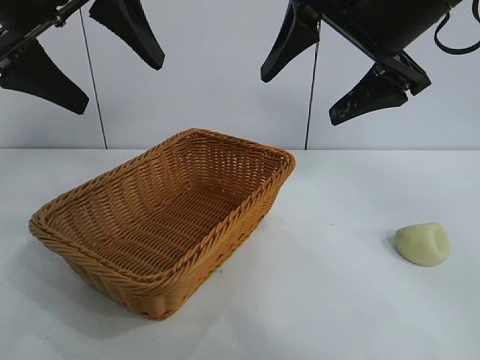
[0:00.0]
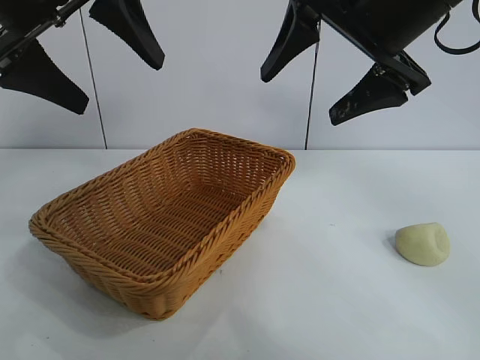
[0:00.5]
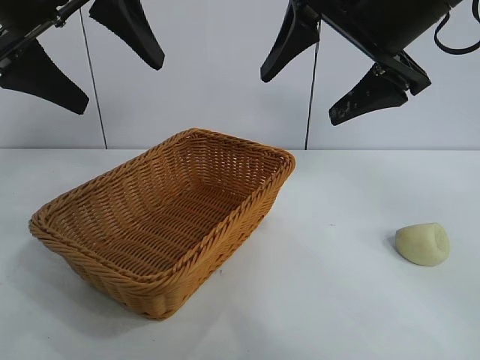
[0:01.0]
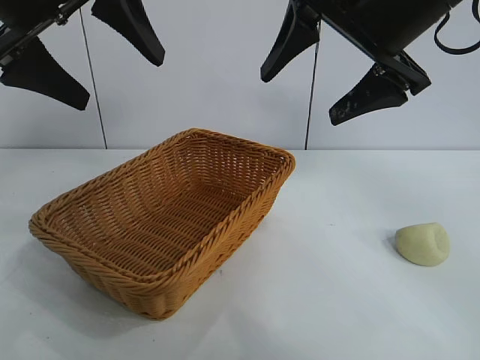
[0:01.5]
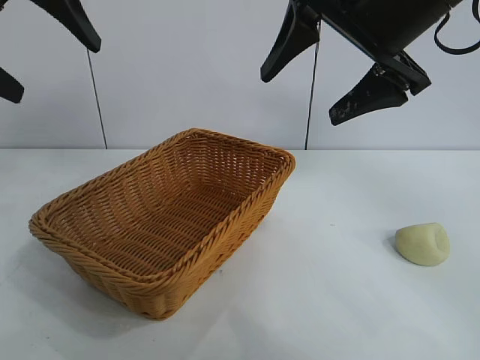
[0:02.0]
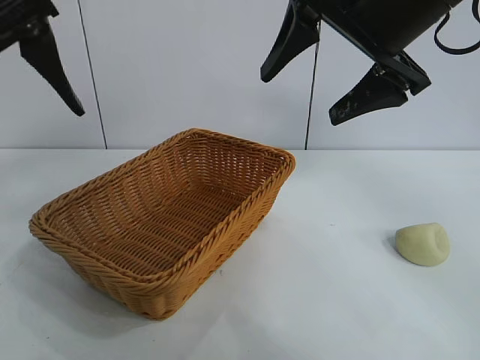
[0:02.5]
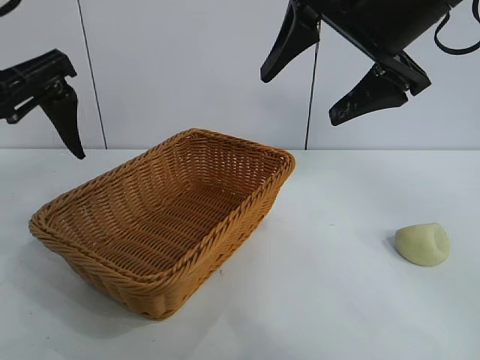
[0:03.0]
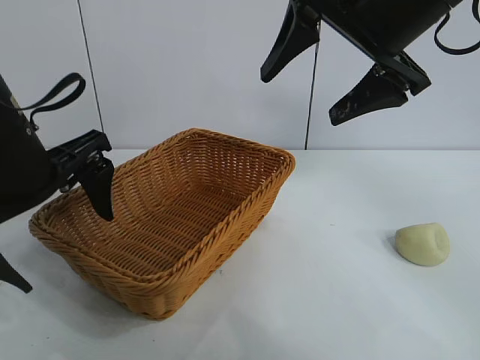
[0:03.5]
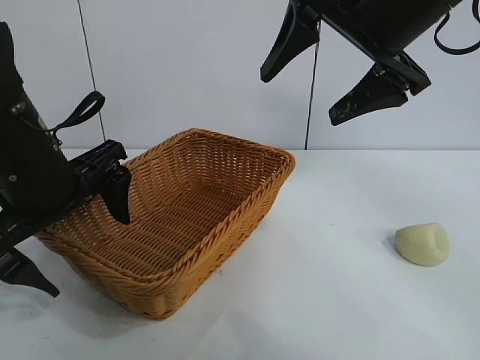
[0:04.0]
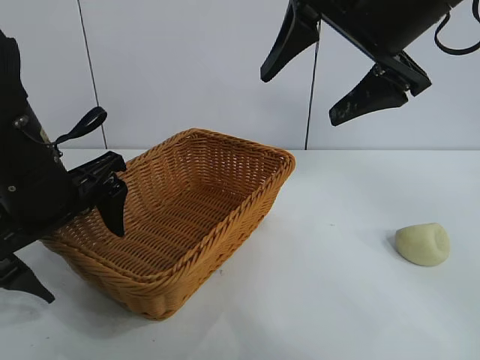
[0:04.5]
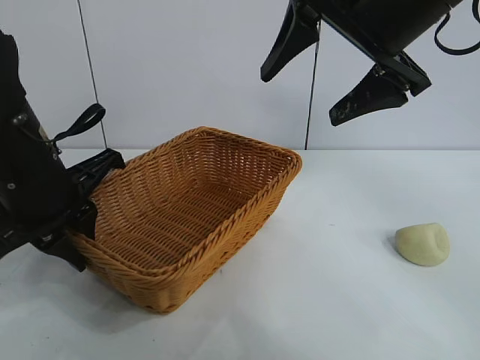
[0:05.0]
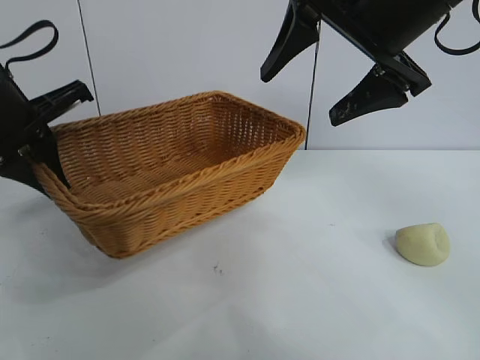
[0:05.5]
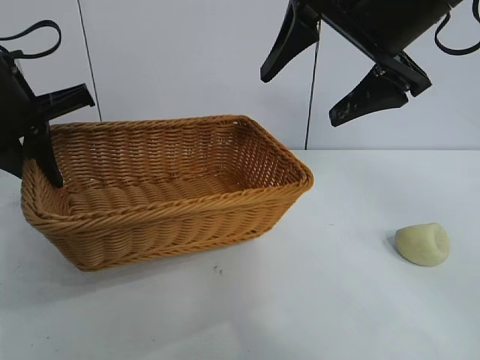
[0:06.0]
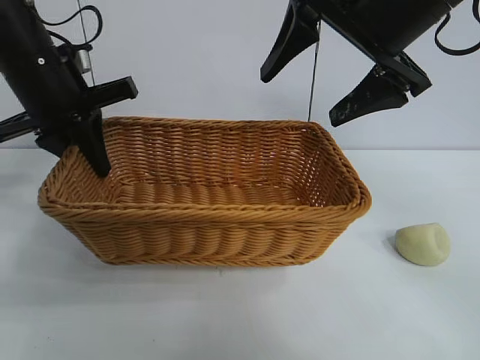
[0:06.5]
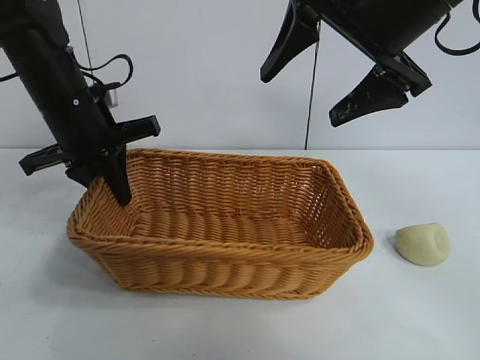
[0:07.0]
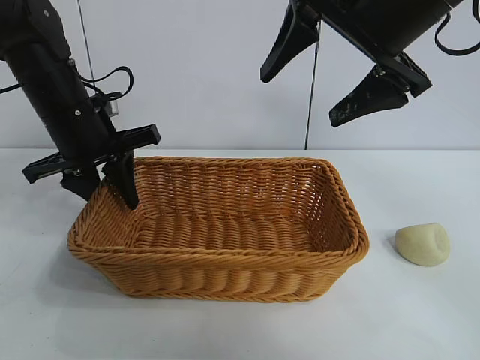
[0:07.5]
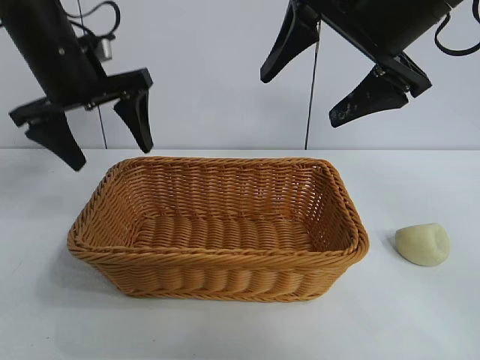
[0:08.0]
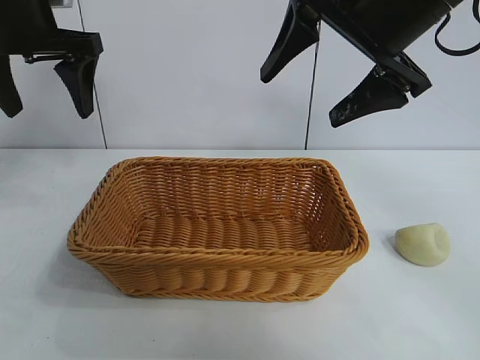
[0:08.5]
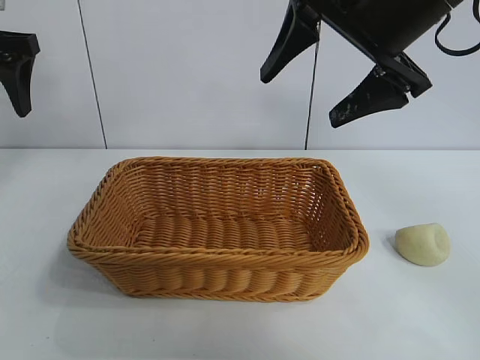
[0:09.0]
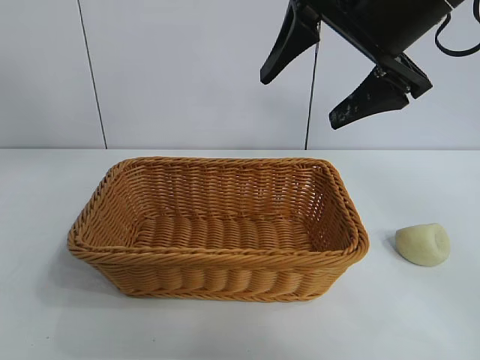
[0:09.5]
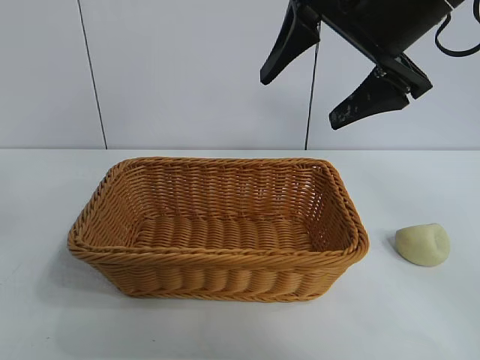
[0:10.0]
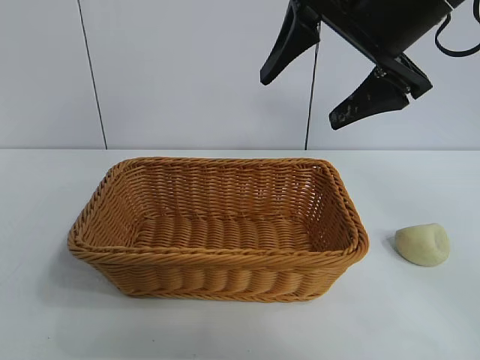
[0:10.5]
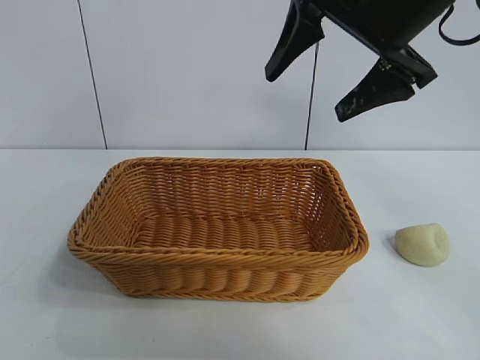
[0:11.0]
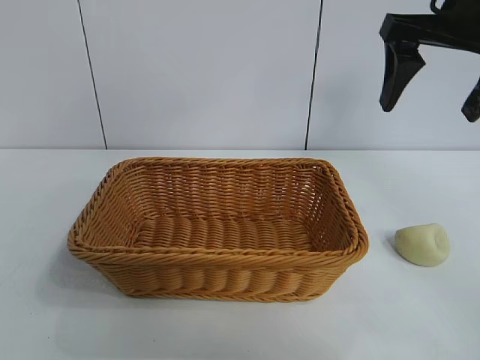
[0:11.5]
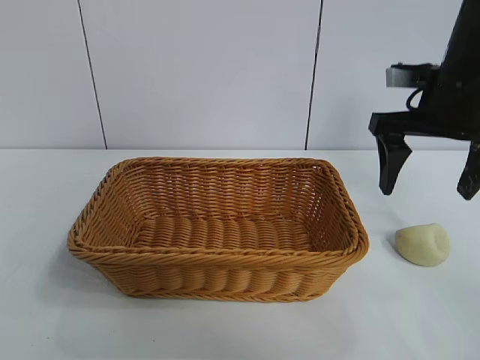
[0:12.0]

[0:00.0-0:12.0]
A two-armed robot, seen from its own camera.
Task of the whole recording: pick up the egg yolk pastry and put it into the basket.
Step, 0:01.5 to 0:05.0: Grasp the basket with left gripper.
Step, 0:05.5 to 0:07.5: Place the basket in the center of view with left gripper.

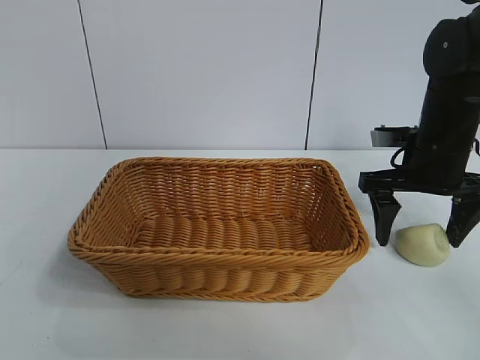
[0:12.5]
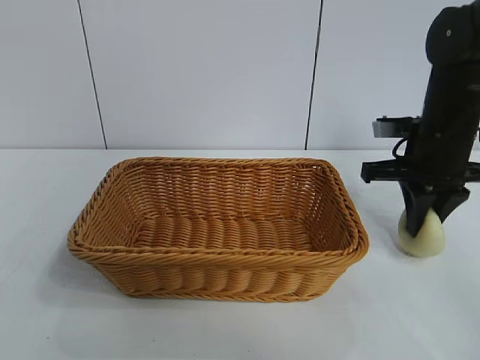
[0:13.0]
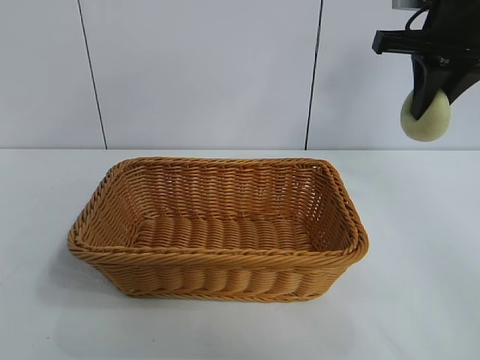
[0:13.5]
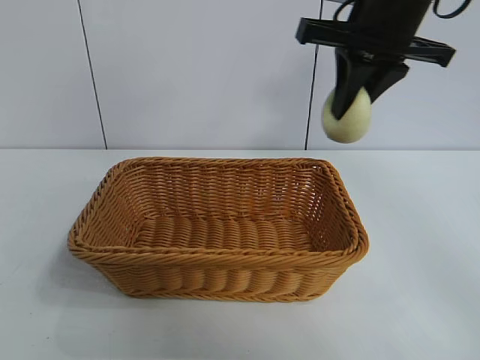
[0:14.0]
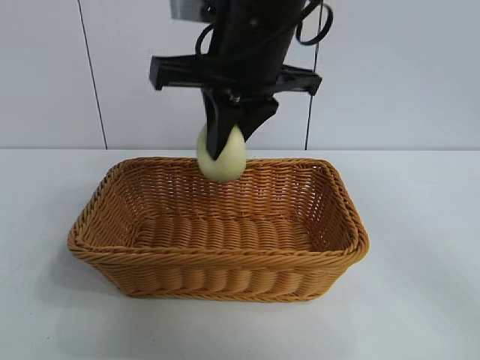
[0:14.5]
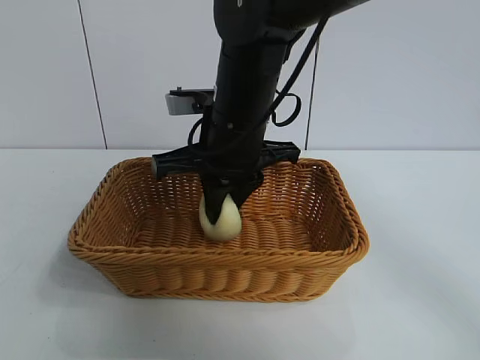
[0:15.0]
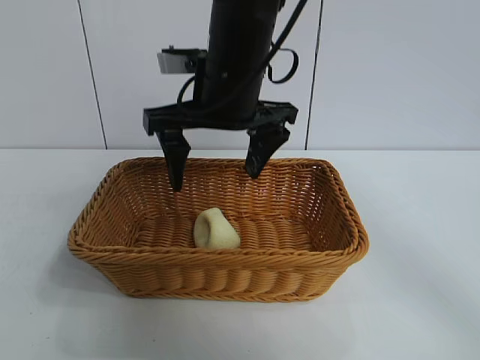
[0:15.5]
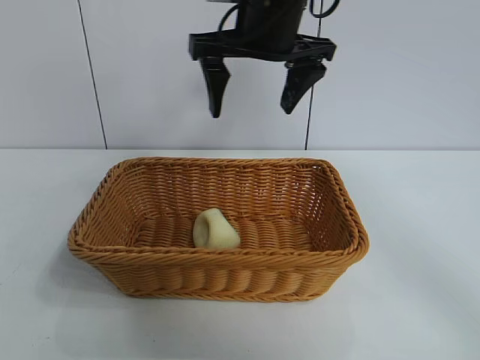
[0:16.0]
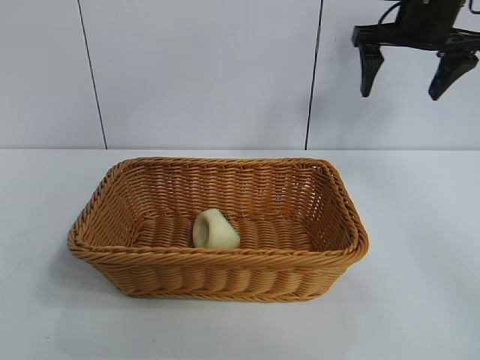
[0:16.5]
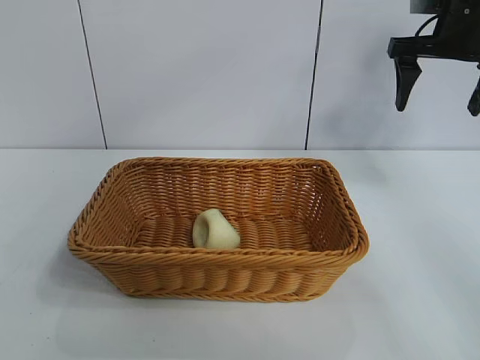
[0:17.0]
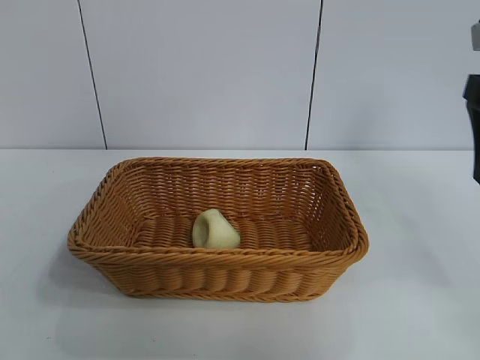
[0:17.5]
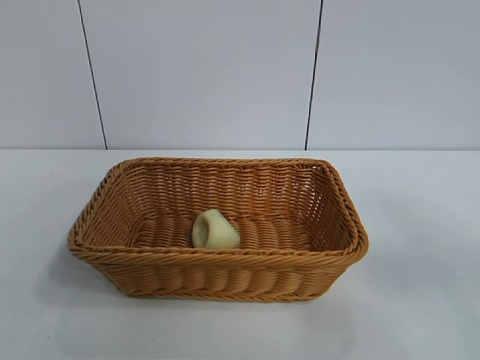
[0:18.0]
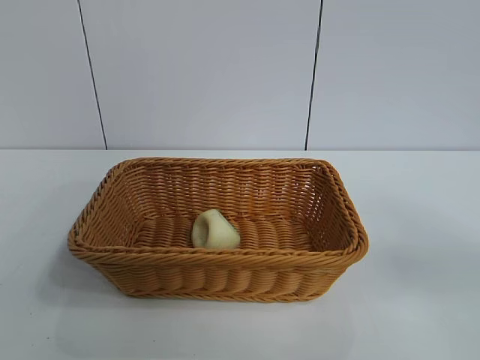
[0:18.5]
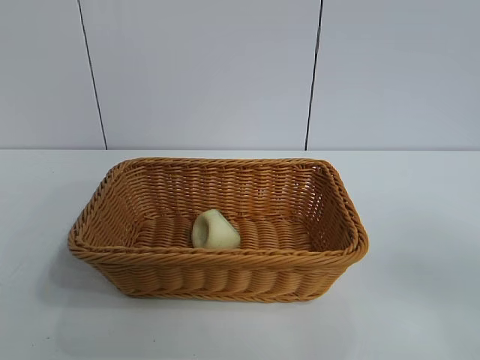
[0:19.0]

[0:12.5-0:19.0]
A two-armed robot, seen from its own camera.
Task of the whole recording: pick up the egg yolk pastry and put it into the basket.
Step, 0:13.0 to 0:15.0: Place the egg yolk pastry in the basket with right gripper.

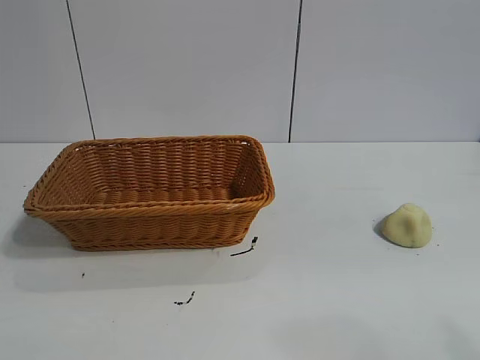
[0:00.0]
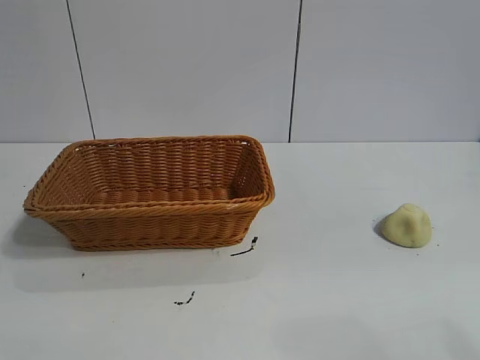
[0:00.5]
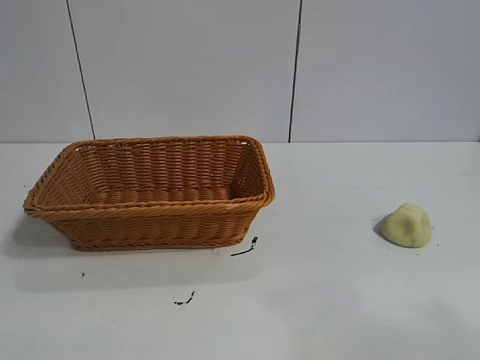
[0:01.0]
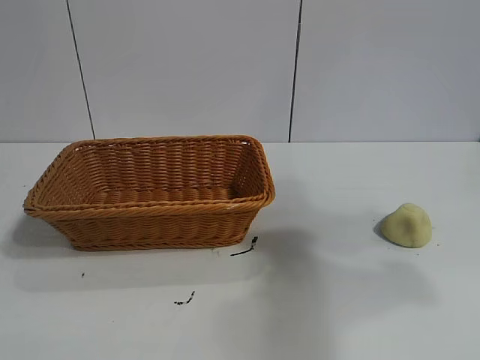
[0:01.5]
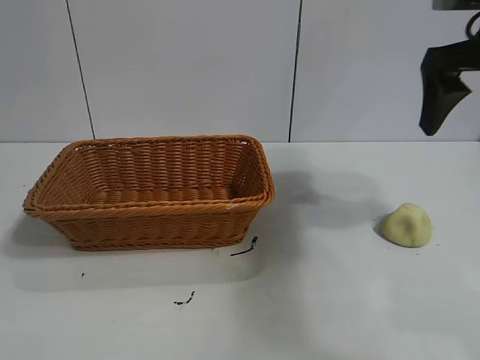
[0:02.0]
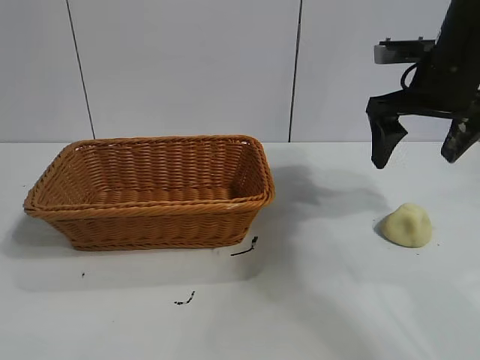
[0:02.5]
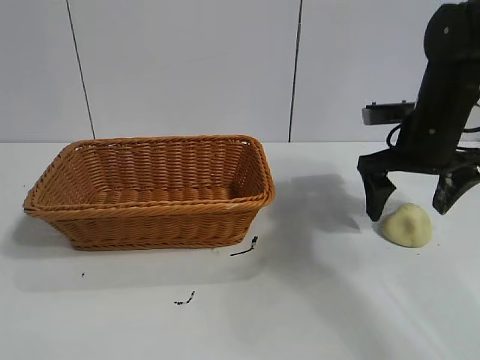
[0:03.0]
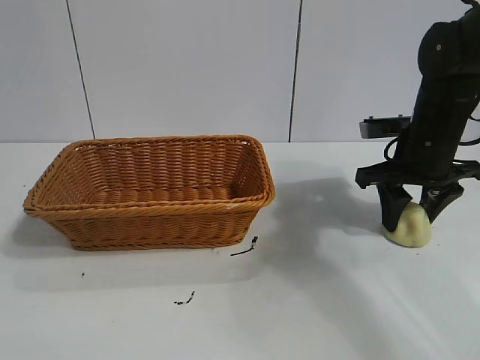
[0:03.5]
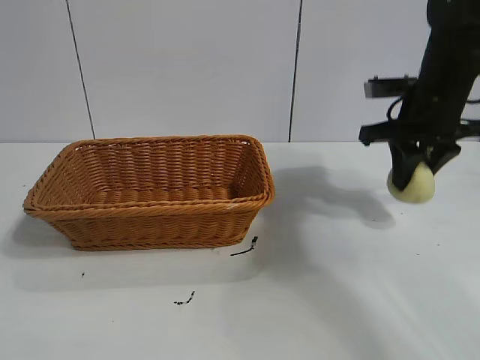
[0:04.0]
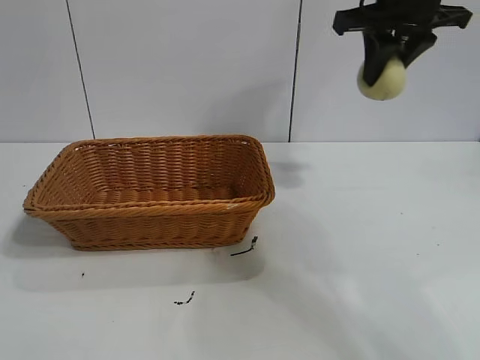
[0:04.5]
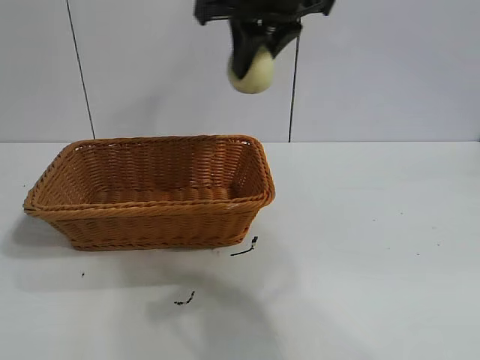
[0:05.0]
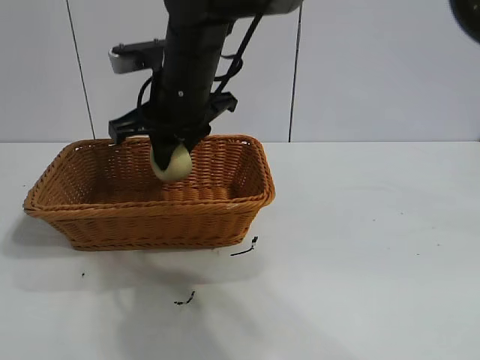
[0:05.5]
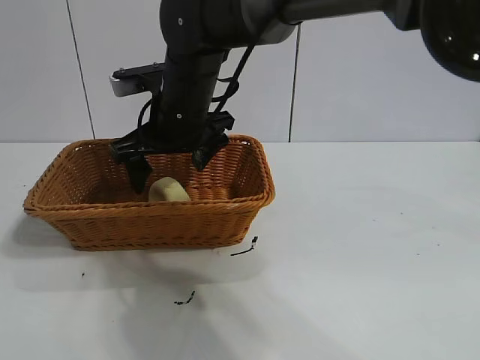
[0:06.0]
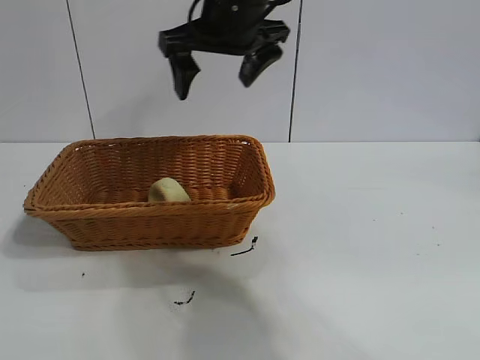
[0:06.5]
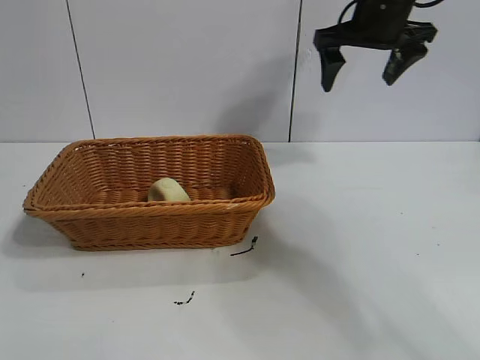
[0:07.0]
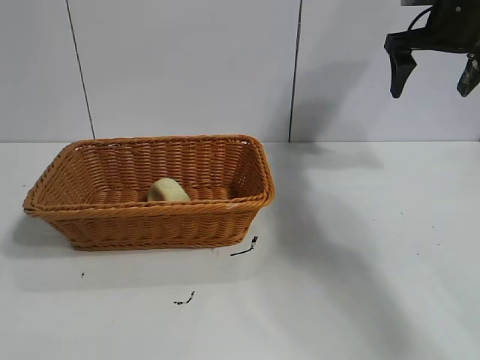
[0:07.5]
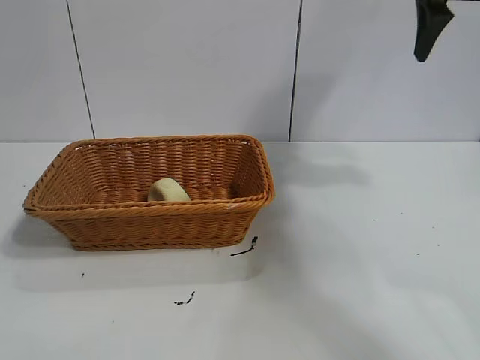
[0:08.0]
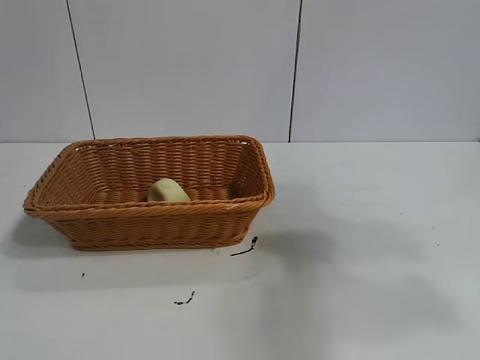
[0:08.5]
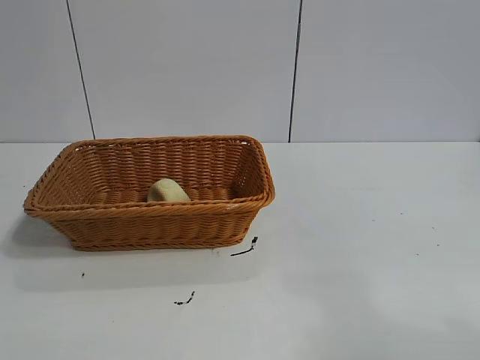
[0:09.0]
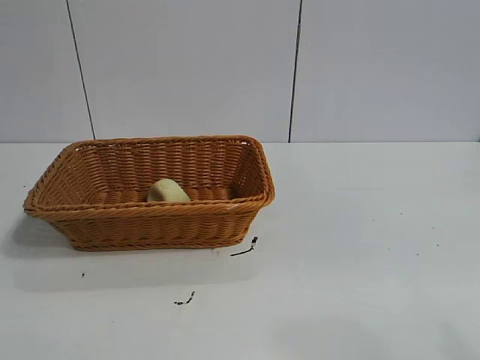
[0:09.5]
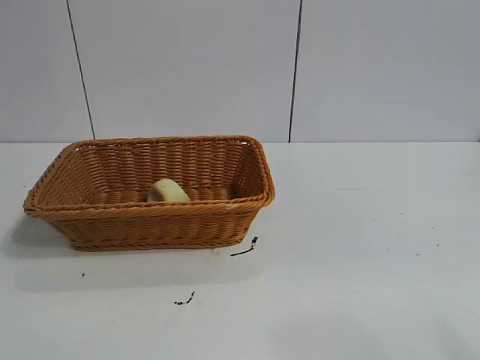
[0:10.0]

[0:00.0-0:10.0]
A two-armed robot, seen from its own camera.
Task of the whole recording: pick up the egg yolk pastry and put it into the basket.
Step, 0:01.0 to 0:03.5: Grasp egg yolk pastry with right gripper.
Step, 0:04.0 to 0:05.5: Place the egg yolk pastry in the basket with right gripper.
